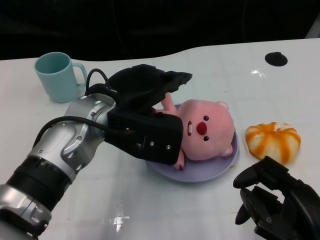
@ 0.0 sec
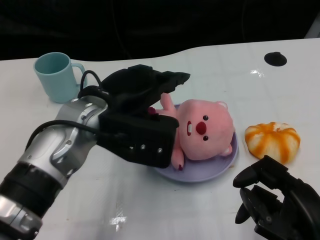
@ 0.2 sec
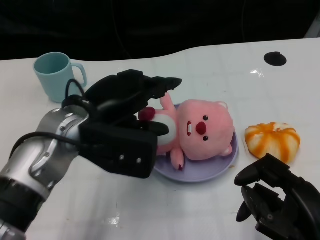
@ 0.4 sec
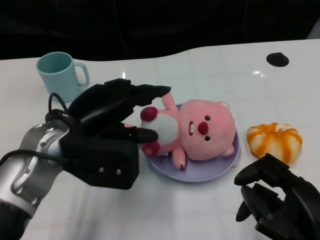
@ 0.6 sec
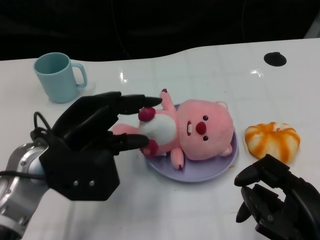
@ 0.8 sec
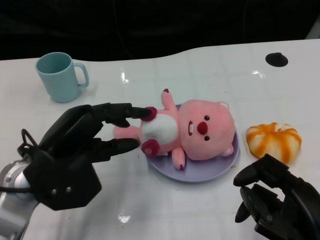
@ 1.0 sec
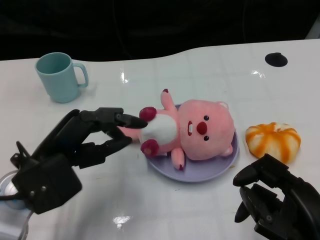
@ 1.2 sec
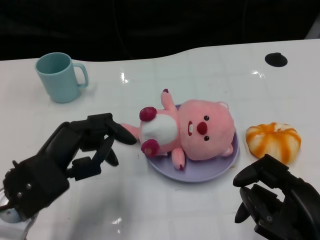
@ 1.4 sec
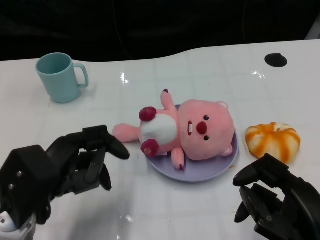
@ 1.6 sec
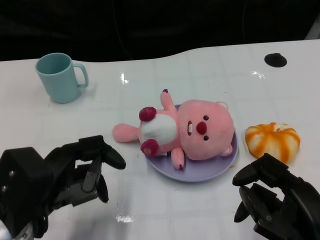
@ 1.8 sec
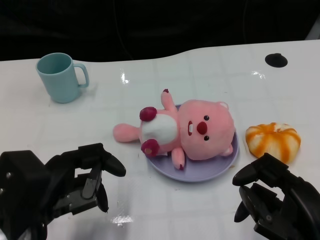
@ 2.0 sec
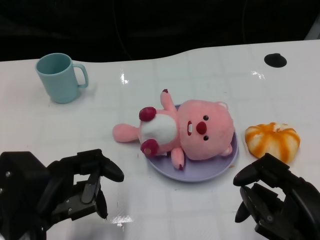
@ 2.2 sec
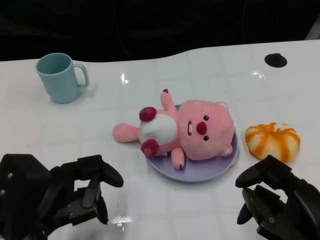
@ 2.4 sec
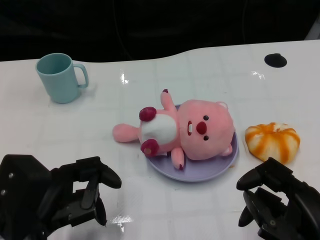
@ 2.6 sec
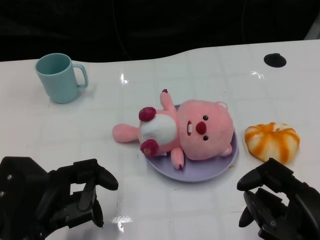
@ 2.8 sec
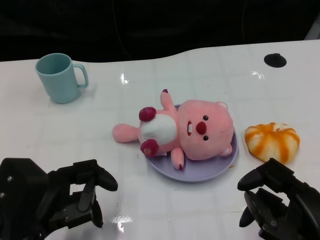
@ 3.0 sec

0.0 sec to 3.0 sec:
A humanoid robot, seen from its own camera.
Task of the whole recording: Pick up the doll on one side of the plate and place it into the plate.
0.0 sec to 1.6 sec: The left hand is displaced to the left, backward and downward by roughly 15 cm.

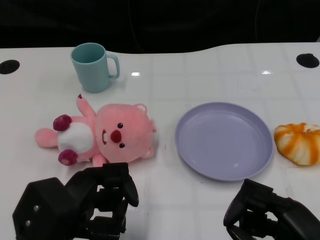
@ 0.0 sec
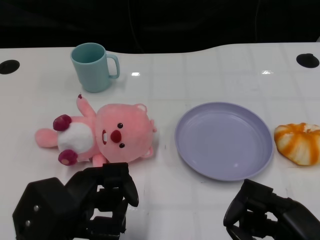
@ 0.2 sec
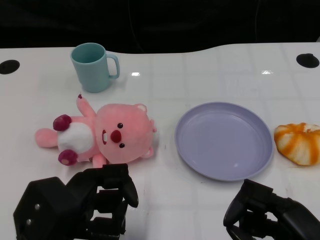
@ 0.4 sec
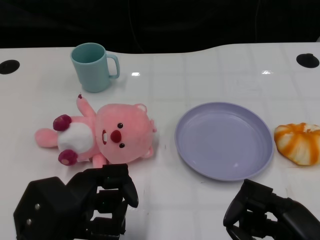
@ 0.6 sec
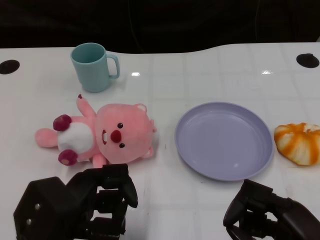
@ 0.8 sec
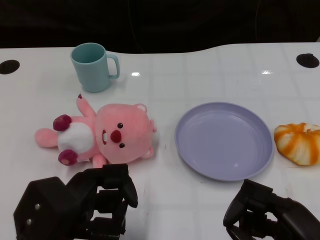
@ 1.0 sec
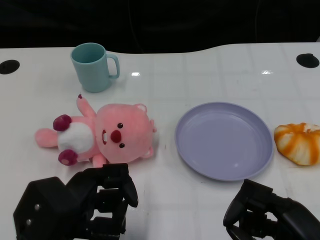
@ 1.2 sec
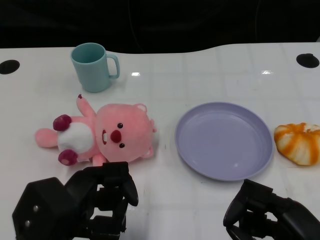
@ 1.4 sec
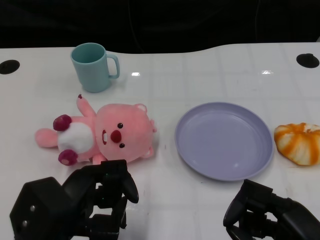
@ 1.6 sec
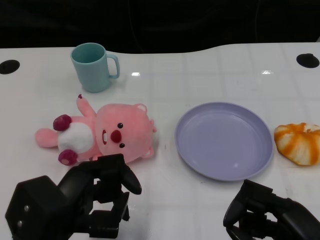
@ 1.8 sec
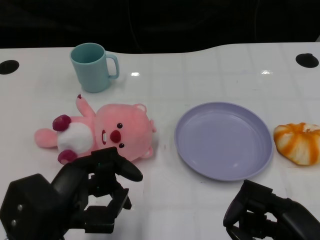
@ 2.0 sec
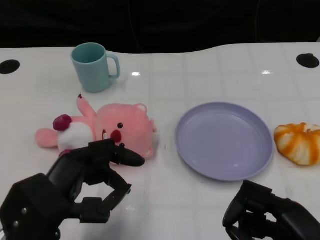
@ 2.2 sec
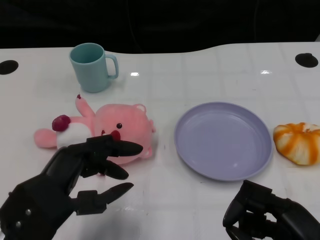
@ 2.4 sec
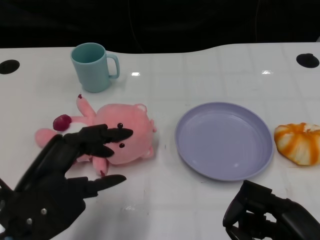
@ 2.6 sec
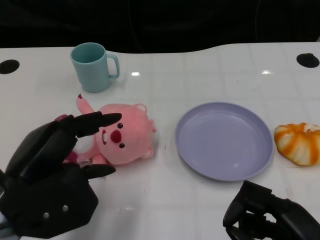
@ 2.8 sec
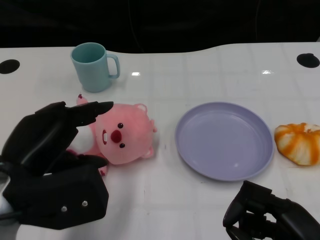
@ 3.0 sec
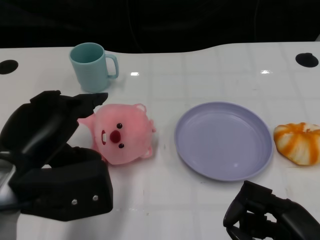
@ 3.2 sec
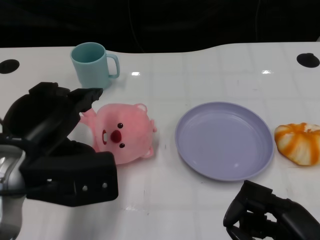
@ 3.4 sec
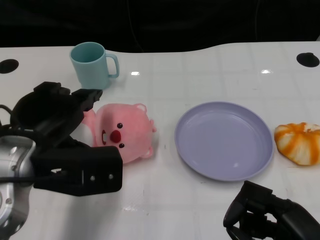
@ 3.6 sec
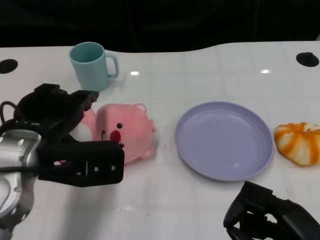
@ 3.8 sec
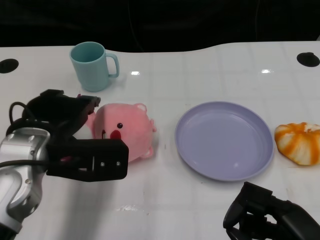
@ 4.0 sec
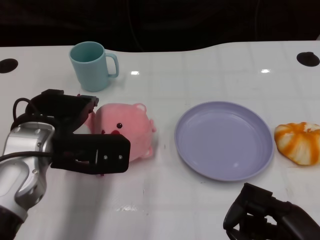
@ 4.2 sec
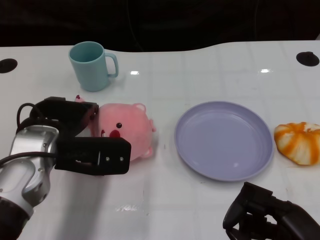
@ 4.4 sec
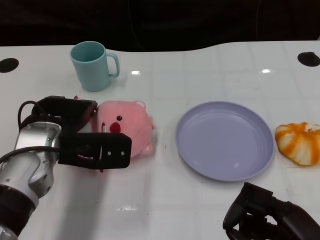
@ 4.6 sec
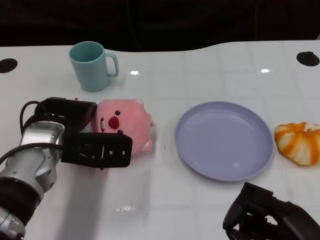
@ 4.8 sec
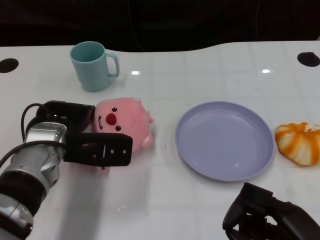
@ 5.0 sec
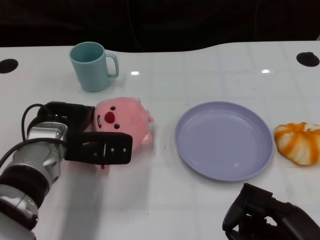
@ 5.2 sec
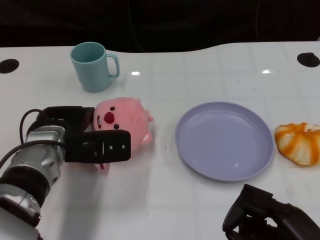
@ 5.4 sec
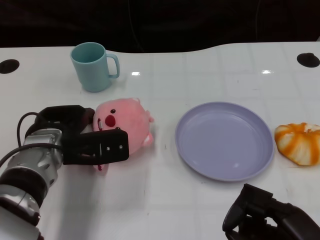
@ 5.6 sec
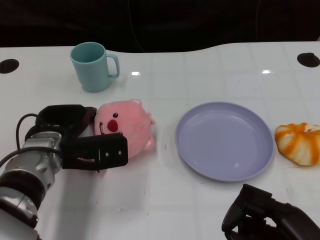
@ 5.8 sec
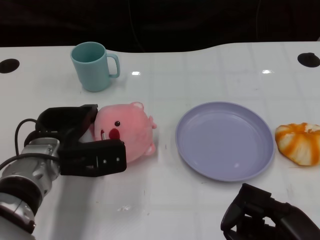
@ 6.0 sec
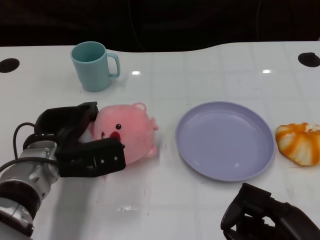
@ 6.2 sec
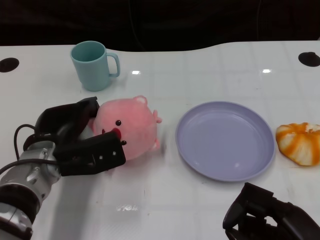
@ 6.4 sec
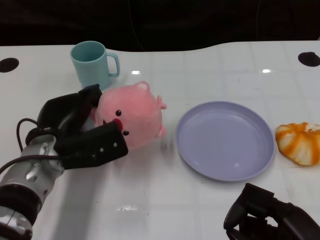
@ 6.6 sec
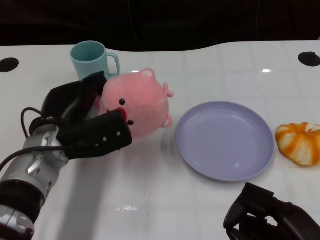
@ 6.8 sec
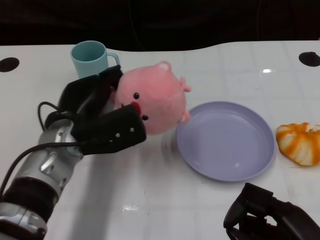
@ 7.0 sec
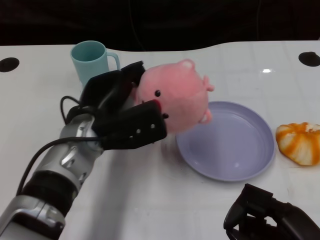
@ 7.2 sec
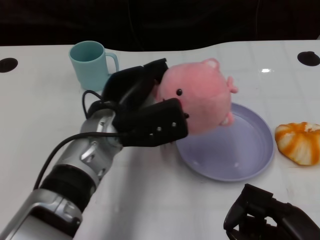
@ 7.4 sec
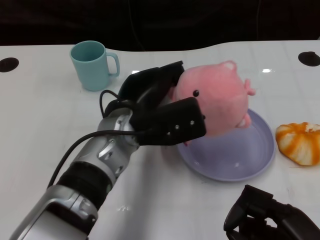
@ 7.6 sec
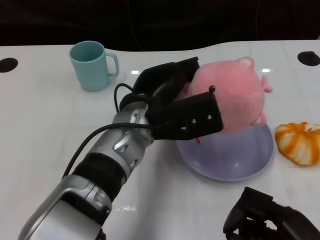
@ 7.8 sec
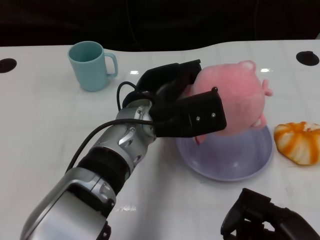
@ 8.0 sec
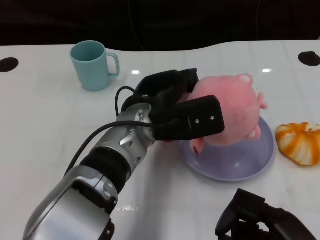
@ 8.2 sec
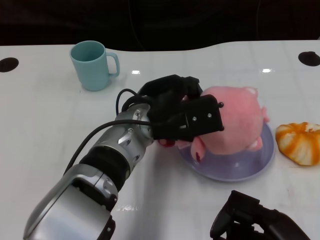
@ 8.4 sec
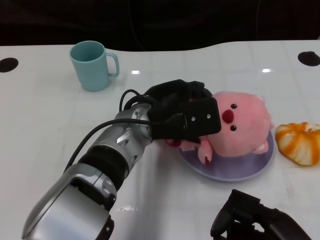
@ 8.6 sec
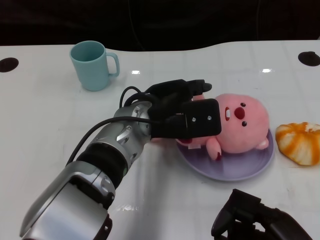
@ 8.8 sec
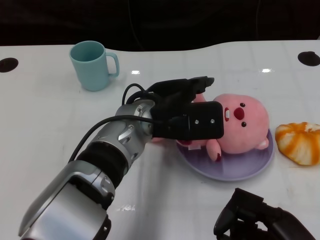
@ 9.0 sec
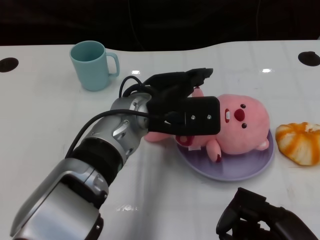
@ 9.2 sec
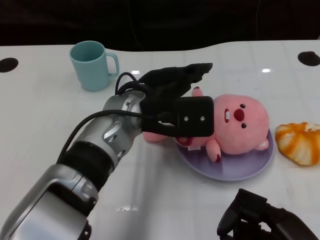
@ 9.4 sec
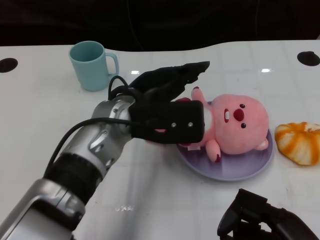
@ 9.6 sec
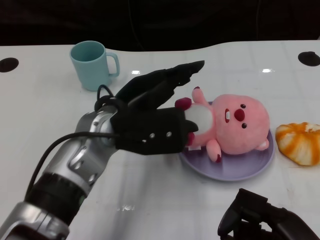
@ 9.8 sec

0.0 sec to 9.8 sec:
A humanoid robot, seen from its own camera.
Task of the whole recording: Pick up the doll on one side of the plate and place it into the plate.
Step, 1.4 sec to 6.6 sec: Grasp the pink doll with the left gripper.
Step, 7.0 sec to 9.2 sec: Place the pink doll into the plate with the left gripper.
1.4 sec to 2.8 sec: The left hand moves approximately 5 cm.
2.8 sec to 4.2 sec: The left hand is displaced forward by about 10 cm.
4.2 sec to 5.6 sec: The left hand travels downward by some 5 cm.
7.0 sec to 8.4 sec: The left hand moves to the right, about 10 cm.
8.4 sec to 9.8 sec: The left hand ends up roughly 5 cm from where it was.

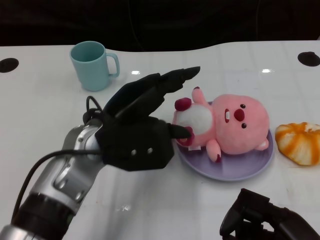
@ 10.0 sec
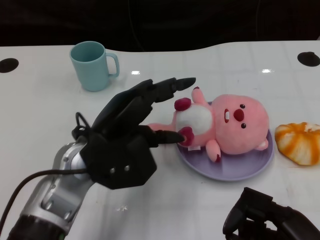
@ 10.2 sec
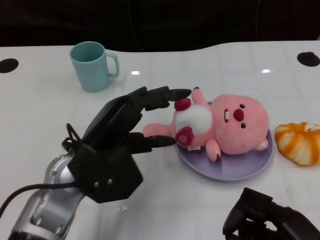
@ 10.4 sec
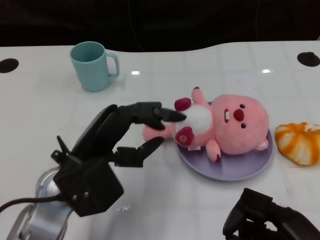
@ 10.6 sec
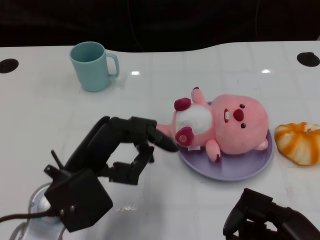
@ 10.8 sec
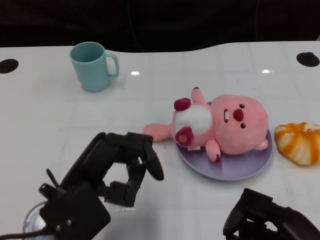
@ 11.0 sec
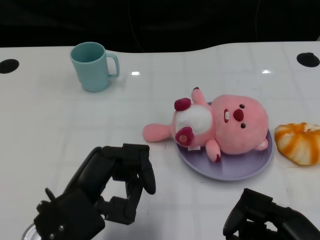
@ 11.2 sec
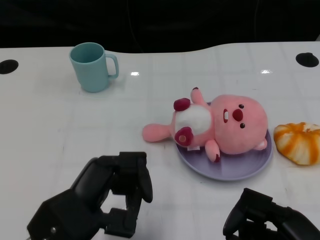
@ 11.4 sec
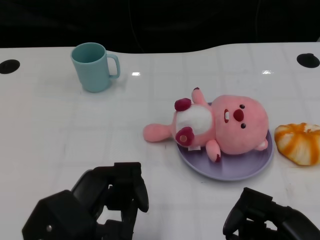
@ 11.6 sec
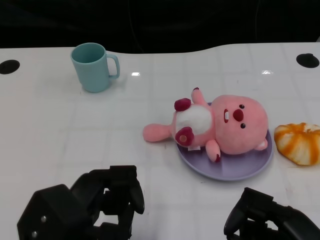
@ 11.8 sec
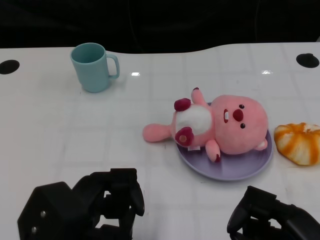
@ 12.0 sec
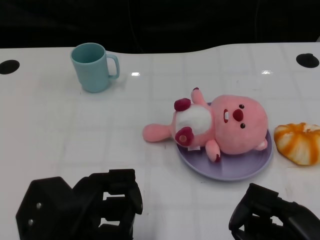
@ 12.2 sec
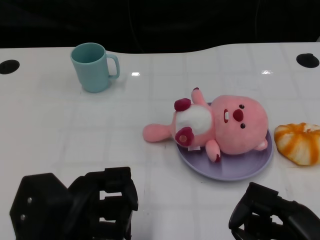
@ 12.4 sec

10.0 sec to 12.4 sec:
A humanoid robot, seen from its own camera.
Task of the whole recording: Pick up the doll on one side of the plate and place it into the plate.
10.0 sec to 11.2 sec: The left hand moves backward and to the left, roughly 10 cm.
